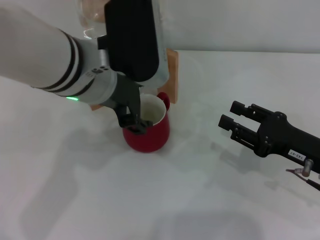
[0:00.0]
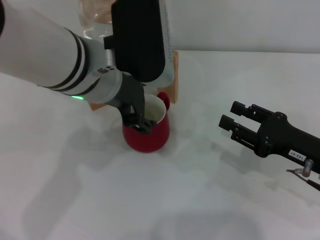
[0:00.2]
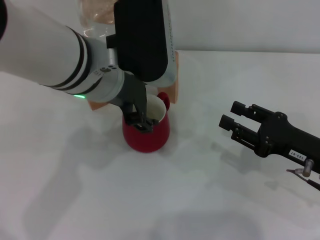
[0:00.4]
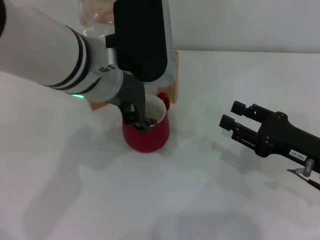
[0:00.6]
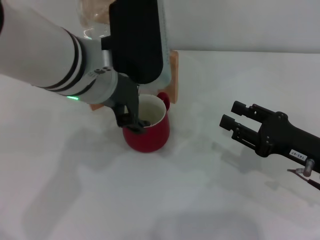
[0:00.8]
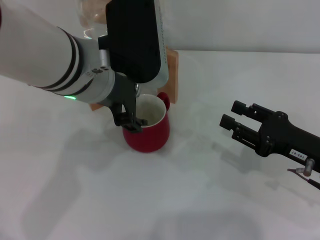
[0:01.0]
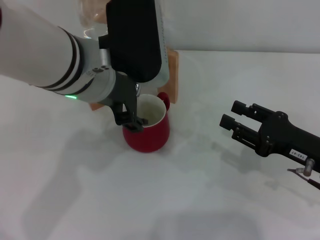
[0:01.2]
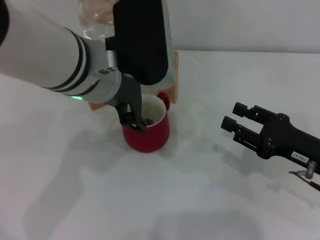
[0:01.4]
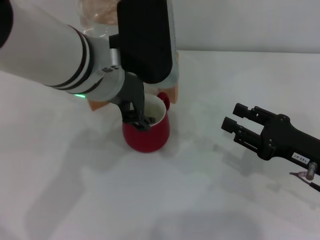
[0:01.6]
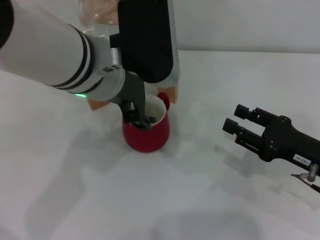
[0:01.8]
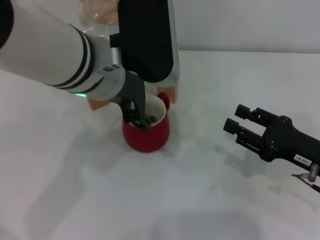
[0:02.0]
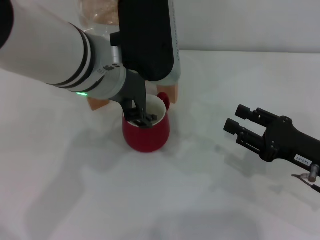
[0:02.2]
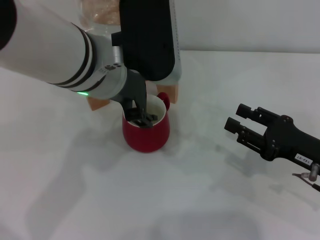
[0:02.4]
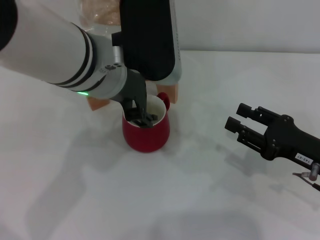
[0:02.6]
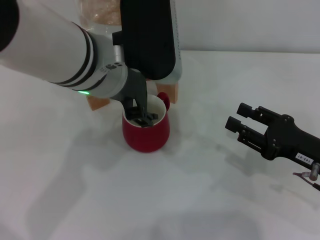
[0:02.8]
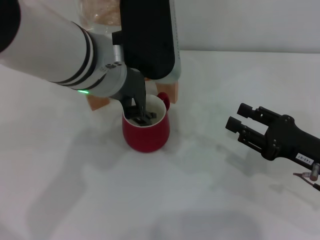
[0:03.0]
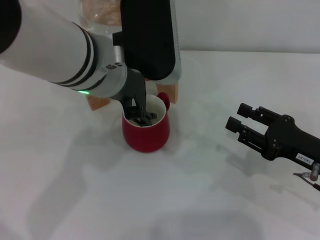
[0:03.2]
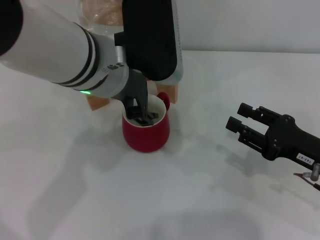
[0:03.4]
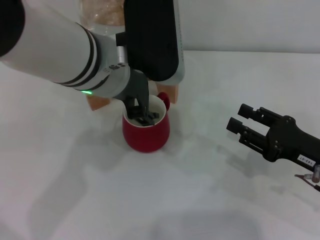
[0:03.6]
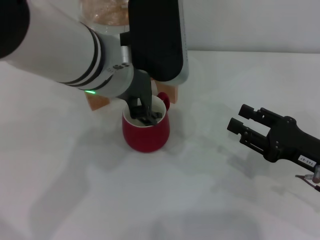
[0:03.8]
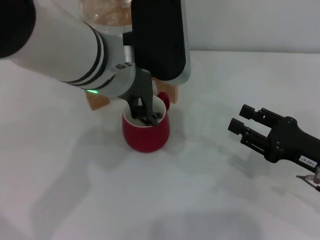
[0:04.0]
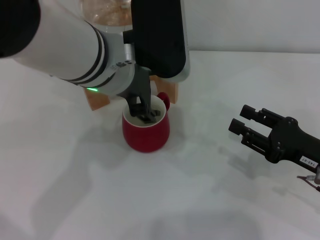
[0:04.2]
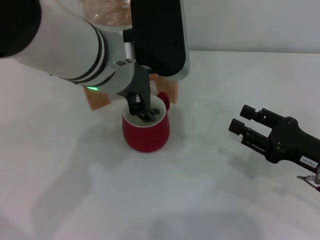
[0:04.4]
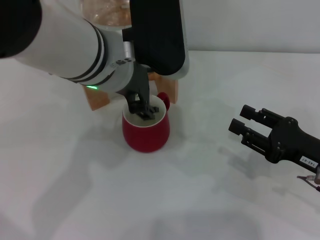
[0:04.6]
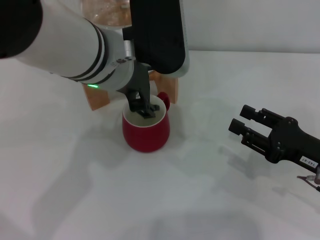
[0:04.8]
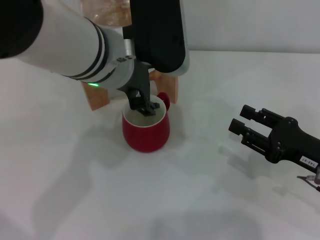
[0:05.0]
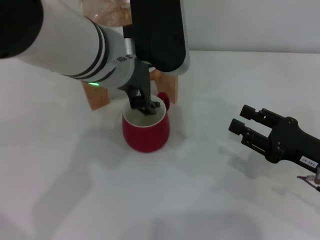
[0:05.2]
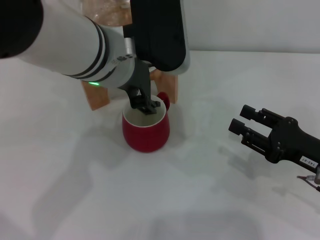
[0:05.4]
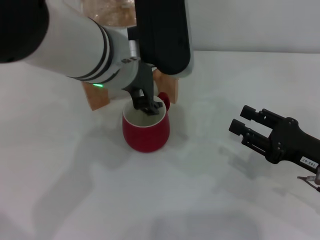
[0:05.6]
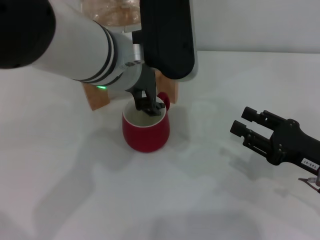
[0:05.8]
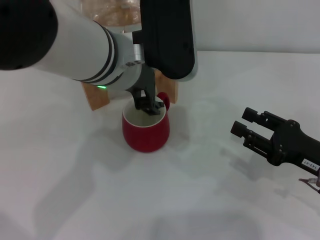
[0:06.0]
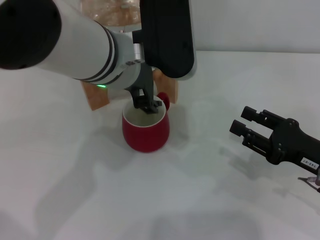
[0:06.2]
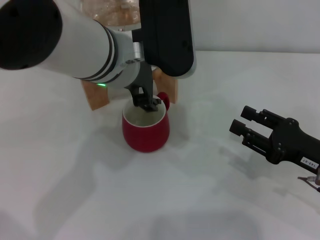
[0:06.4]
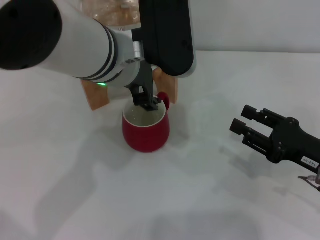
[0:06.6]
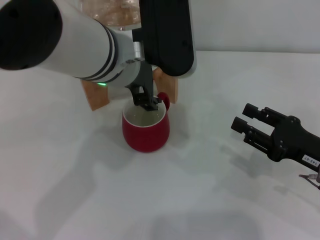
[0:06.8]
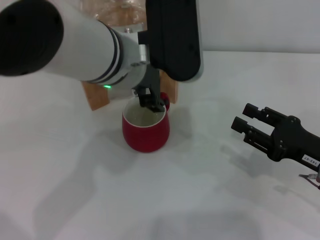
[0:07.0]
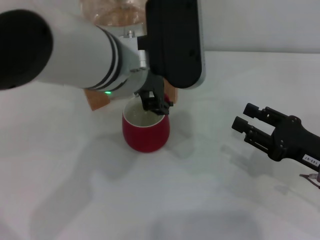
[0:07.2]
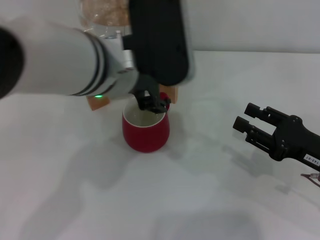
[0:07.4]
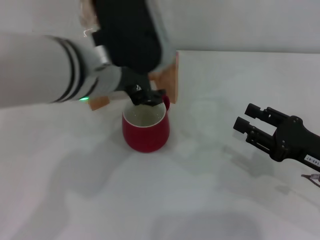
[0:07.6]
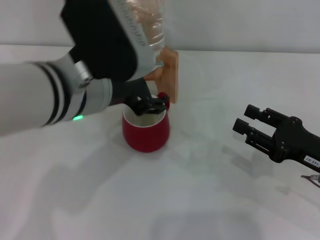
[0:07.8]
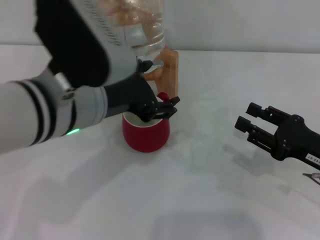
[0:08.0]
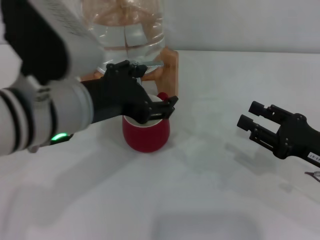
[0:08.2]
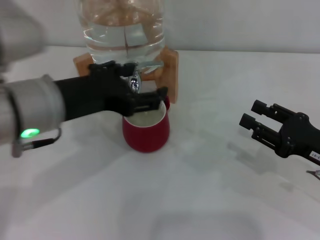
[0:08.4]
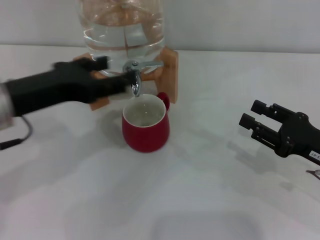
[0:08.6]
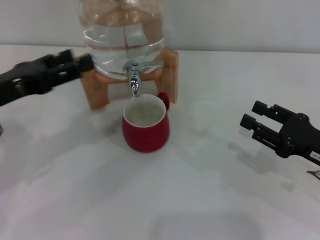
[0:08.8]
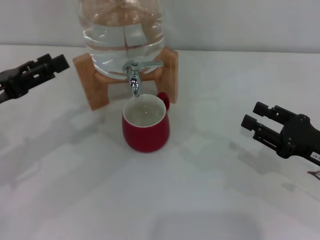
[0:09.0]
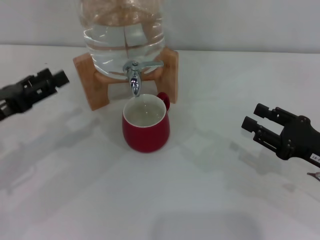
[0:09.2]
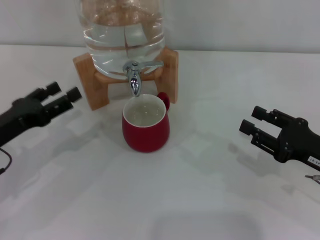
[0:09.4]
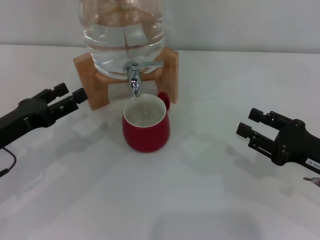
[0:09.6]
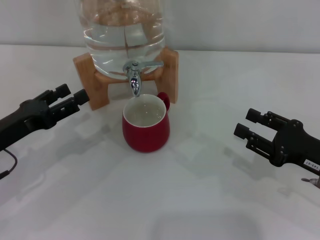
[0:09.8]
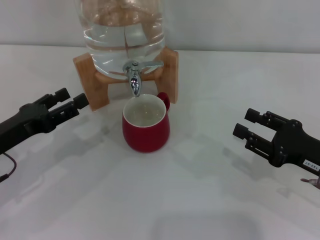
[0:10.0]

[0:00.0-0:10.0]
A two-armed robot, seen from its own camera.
Task of the whole recording: the right gripper pick up the red cup and place it horizontally under the faucet, the left gripper turn on the faucet to fill the cup, and then turn off the faucet.
Step, 0:00.0 to 0:07.2: Close the dispenser valve with the left gripper.
0:00.0 to 0:02.8: Both grippers stay put.
0:02.8 to 0:04.2: The two grippers keep their place.
0:04.2 to 0:05.8: Both grippers stay about where they are.
0:05.8 to 0:07.2: Neither gripper changes place.
0:07.2 to 0:08.6: The left gripper is displaced to the left by about 15 cm.
0:08.6 to 0:10.0: The left gripper moves downward and to the left, approximately 15 cm.
